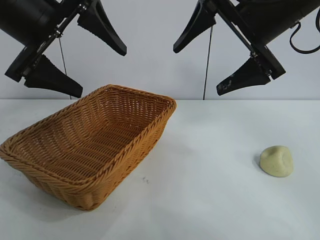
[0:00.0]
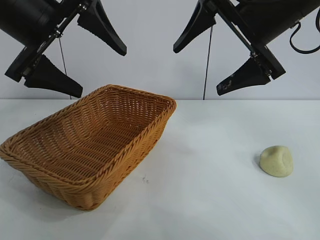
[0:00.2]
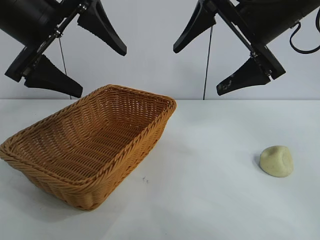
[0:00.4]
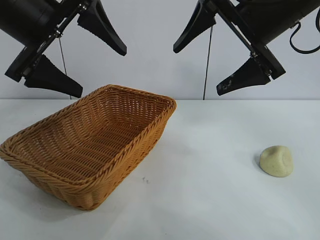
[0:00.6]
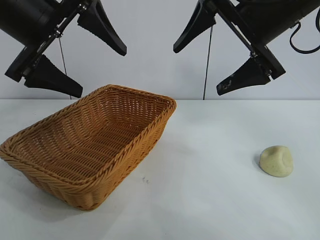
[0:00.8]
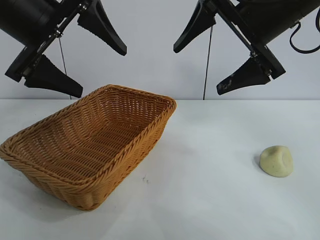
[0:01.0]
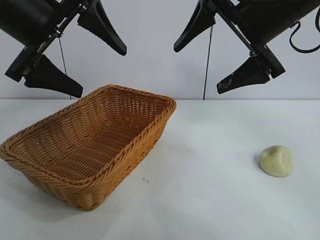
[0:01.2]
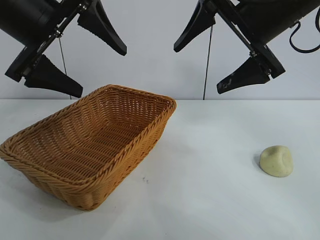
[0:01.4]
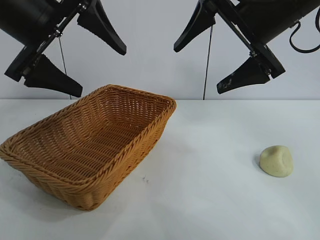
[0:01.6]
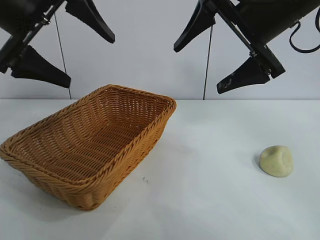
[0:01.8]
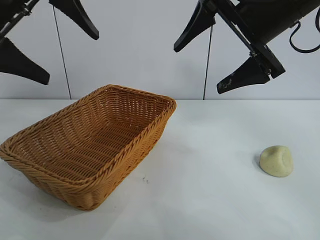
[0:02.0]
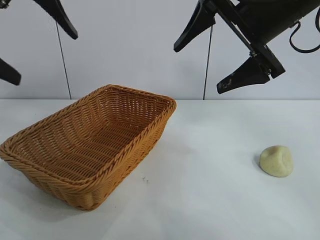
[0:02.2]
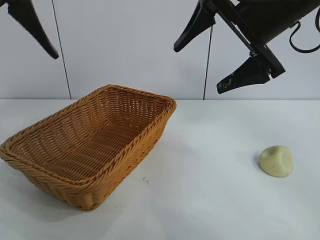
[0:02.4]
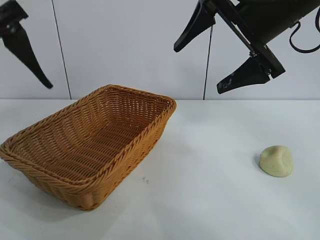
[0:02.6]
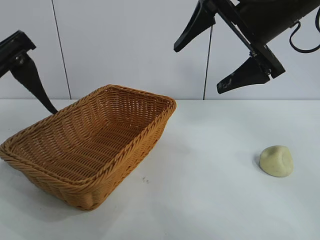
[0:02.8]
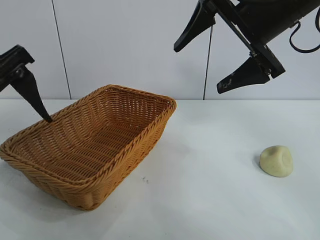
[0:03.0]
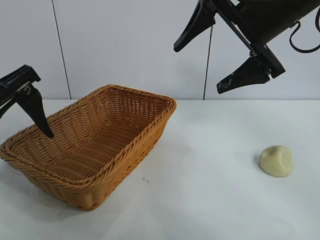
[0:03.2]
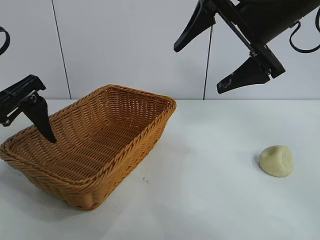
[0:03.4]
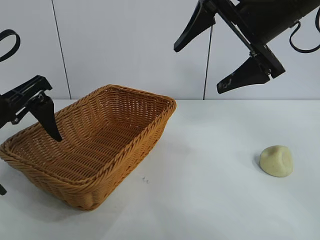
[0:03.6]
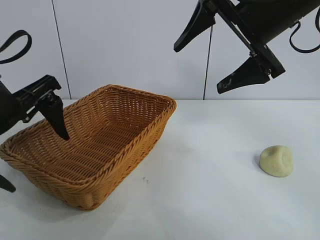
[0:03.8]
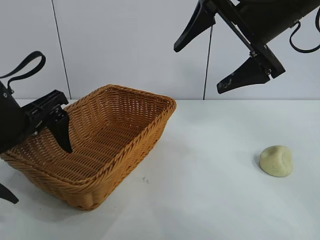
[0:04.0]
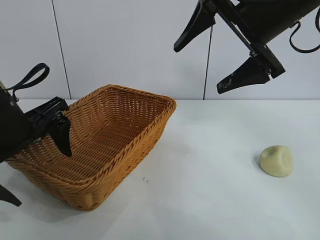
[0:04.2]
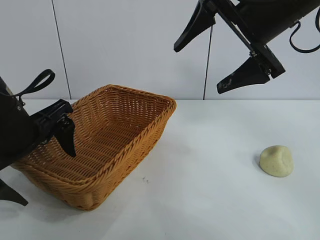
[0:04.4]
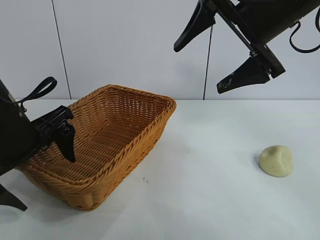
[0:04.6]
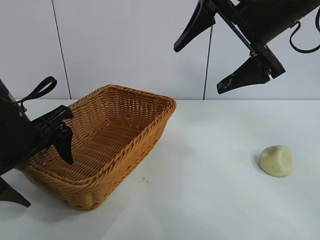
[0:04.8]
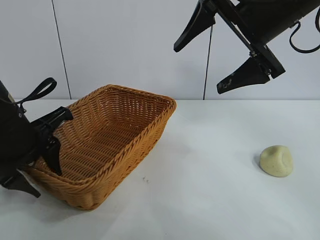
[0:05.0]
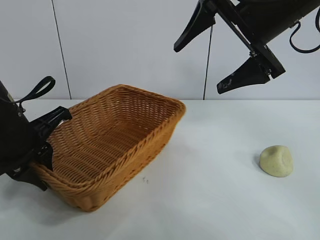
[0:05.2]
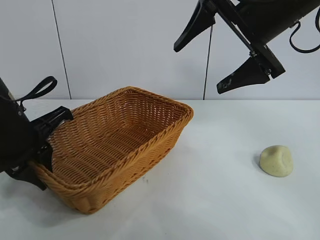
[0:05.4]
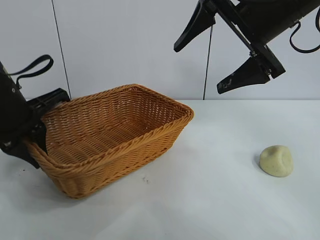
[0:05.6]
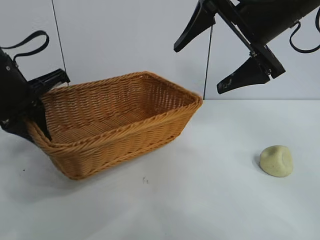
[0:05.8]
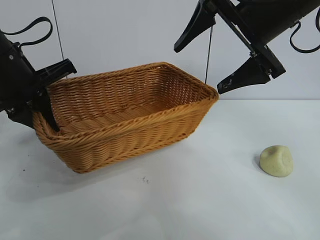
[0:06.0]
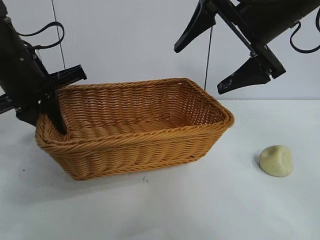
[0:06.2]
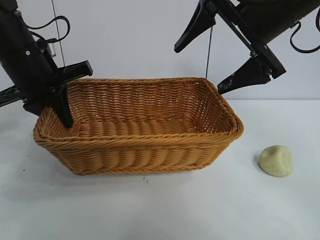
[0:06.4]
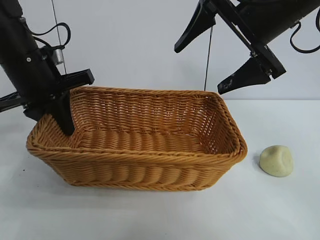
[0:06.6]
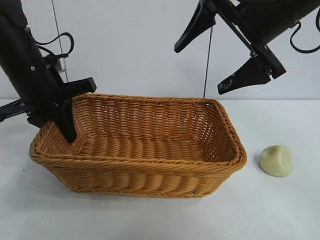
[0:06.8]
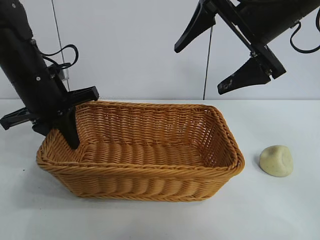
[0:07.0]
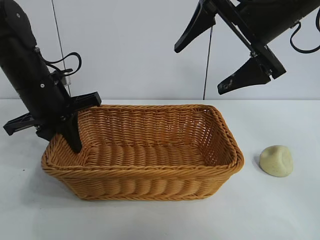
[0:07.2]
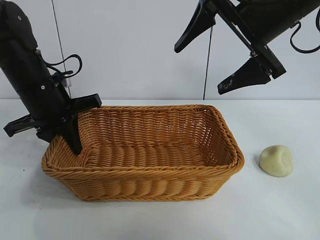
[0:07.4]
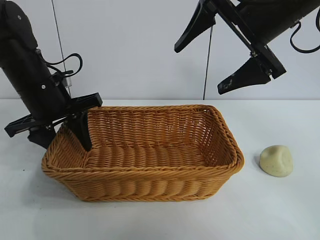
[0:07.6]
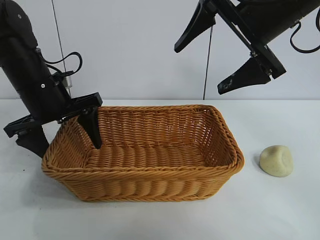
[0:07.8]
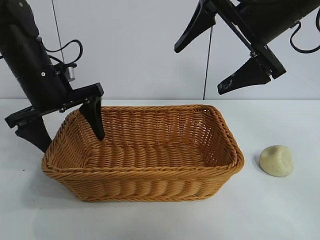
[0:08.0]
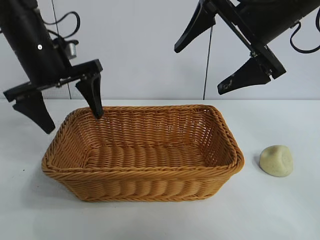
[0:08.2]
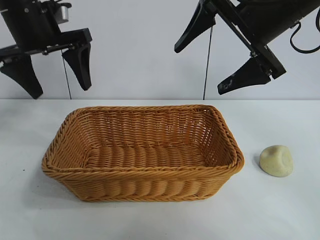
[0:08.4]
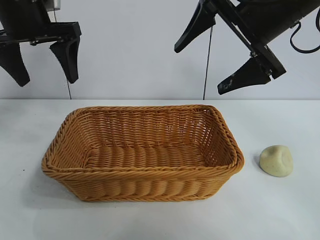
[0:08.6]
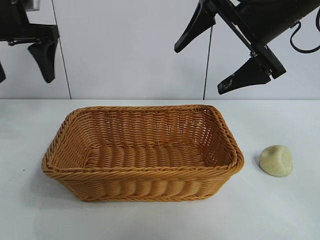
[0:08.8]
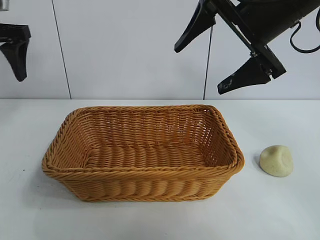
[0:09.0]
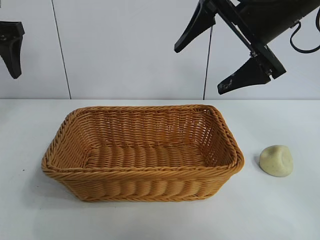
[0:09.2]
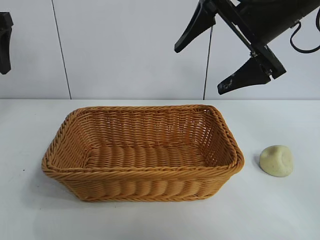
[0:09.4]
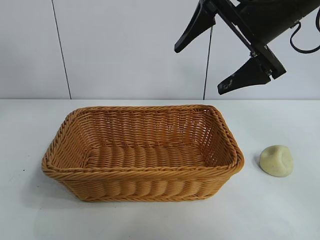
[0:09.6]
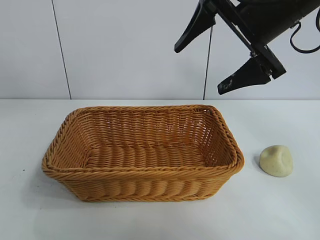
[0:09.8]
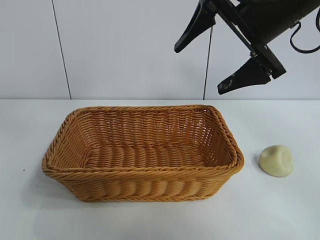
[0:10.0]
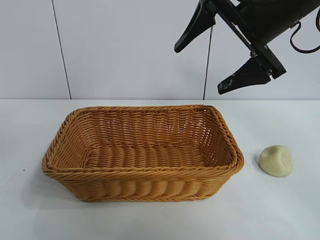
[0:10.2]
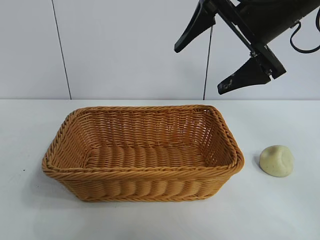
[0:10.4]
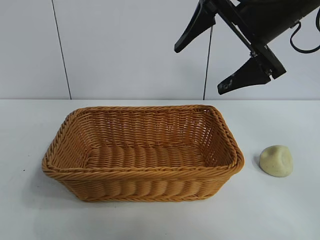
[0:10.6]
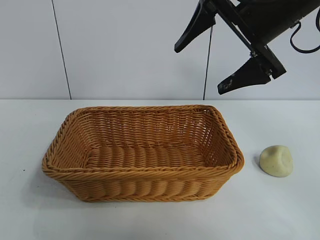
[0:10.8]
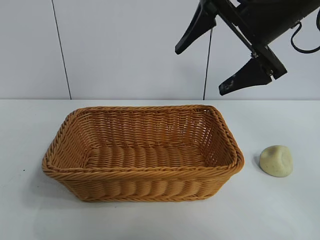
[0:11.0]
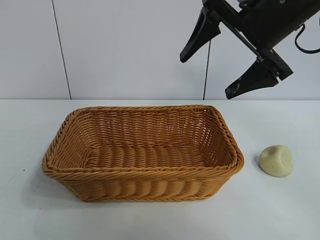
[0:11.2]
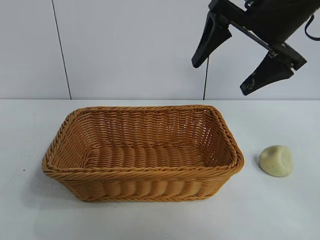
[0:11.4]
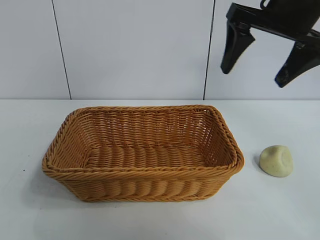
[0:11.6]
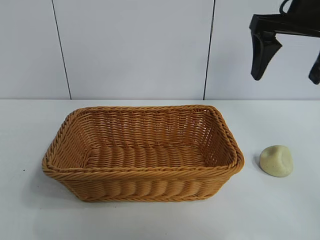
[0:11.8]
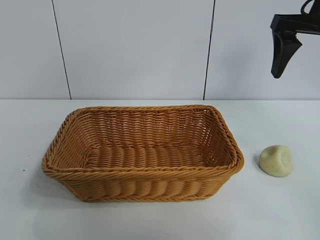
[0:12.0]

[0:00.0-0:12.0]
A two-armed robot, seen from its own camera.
Task of the whole recording: pick up the egg yolk pastry and put it into the basket.
Step, 0:01.0 to 0:05.2: Grasp the basket with left gripper.
Step, 0:05.4 to 0:07.4: Place the basket in the center of view with left gripper.

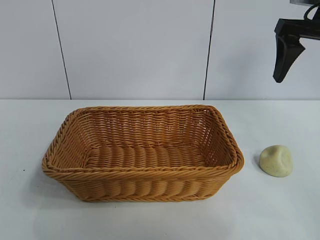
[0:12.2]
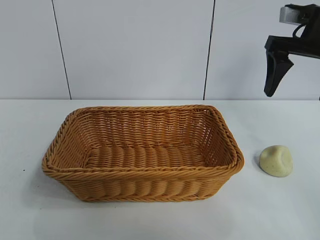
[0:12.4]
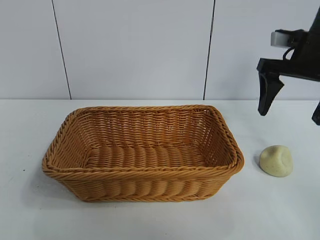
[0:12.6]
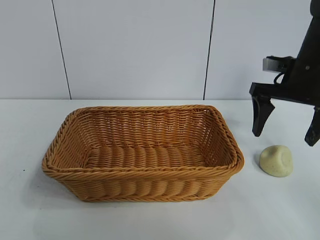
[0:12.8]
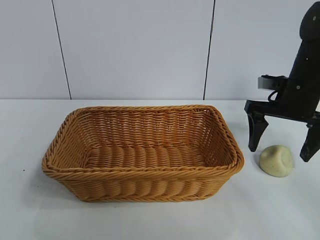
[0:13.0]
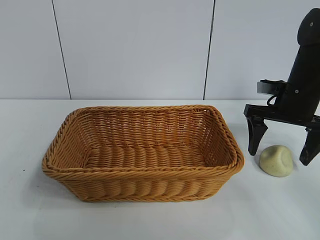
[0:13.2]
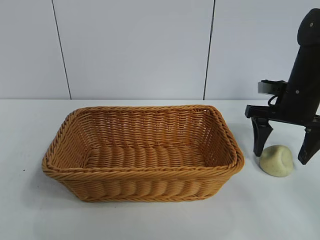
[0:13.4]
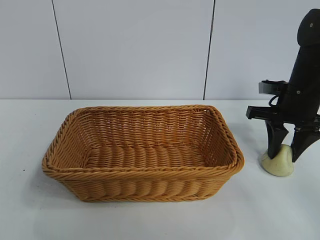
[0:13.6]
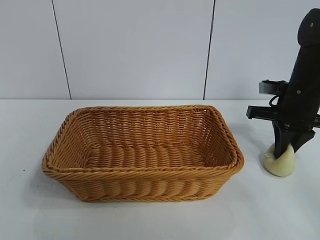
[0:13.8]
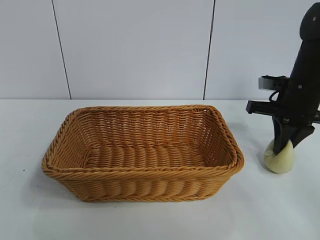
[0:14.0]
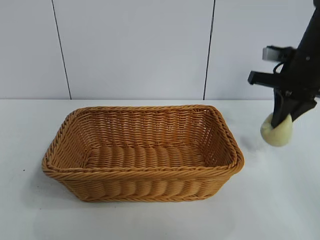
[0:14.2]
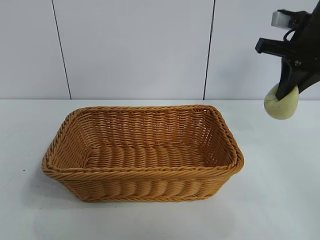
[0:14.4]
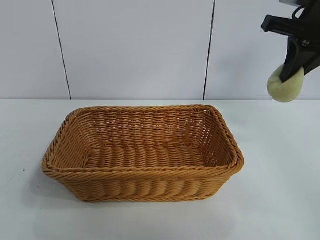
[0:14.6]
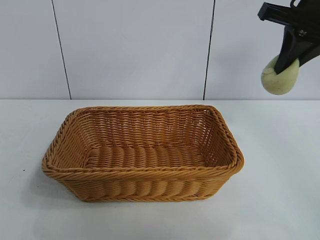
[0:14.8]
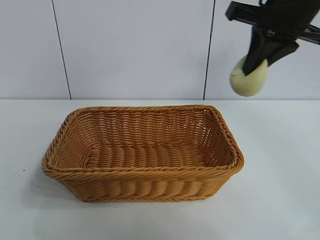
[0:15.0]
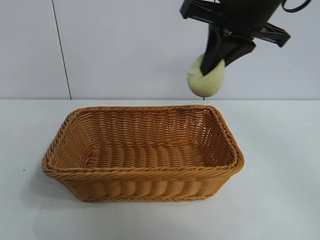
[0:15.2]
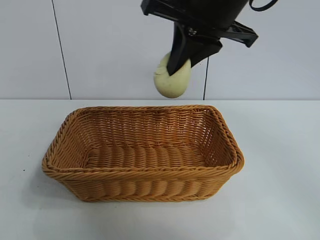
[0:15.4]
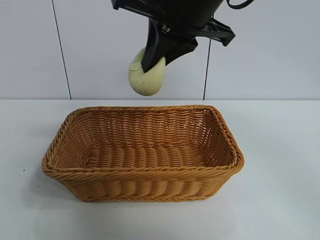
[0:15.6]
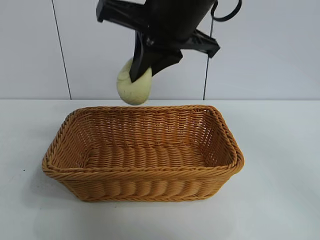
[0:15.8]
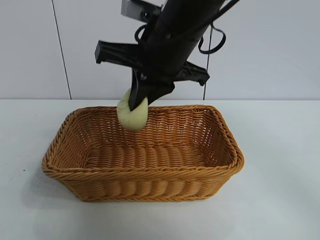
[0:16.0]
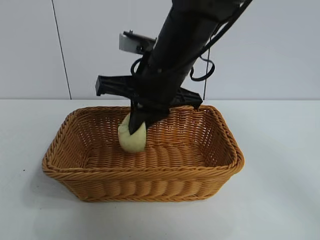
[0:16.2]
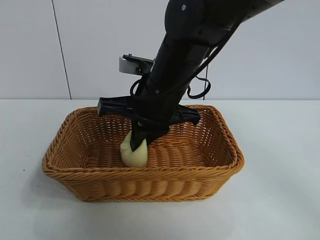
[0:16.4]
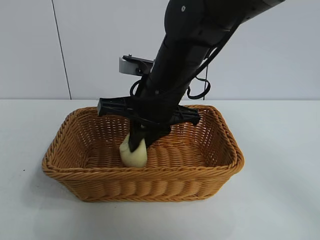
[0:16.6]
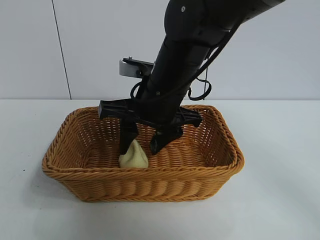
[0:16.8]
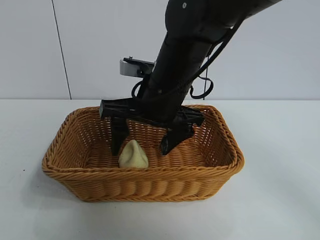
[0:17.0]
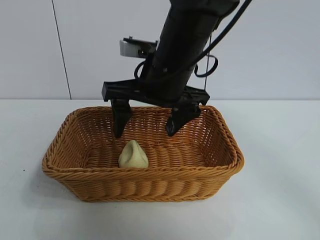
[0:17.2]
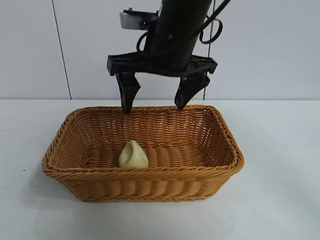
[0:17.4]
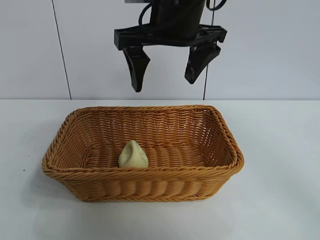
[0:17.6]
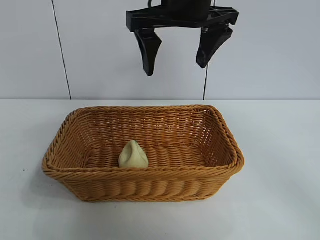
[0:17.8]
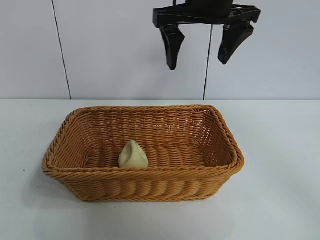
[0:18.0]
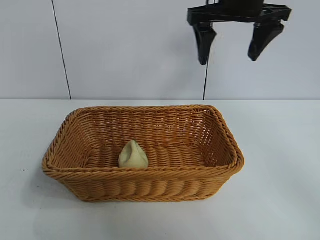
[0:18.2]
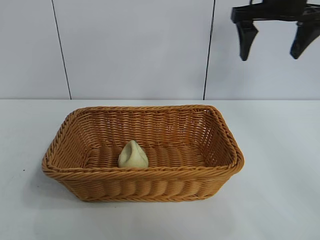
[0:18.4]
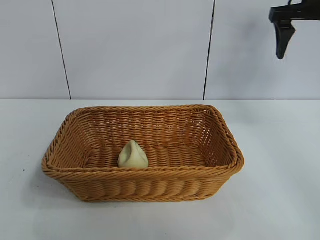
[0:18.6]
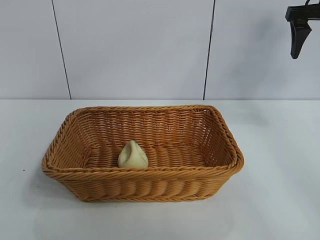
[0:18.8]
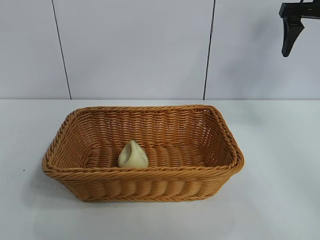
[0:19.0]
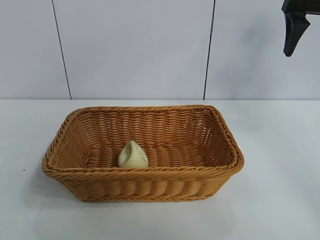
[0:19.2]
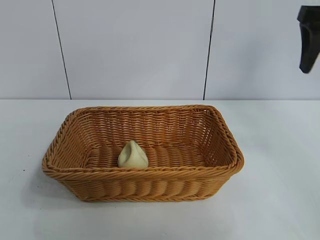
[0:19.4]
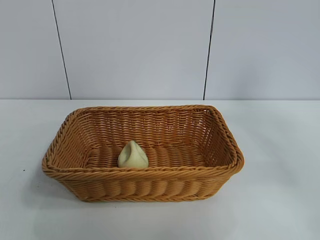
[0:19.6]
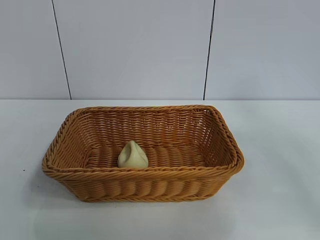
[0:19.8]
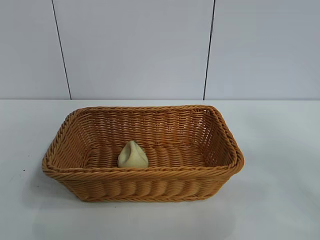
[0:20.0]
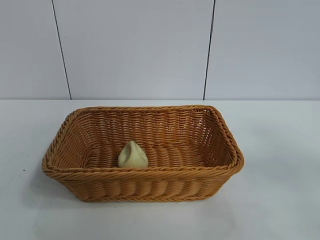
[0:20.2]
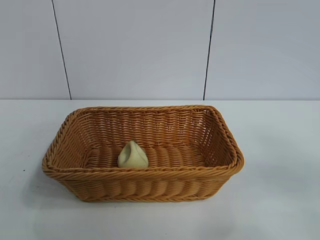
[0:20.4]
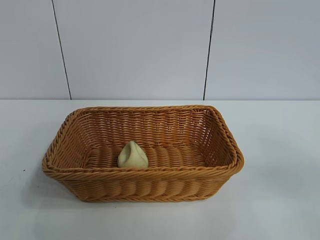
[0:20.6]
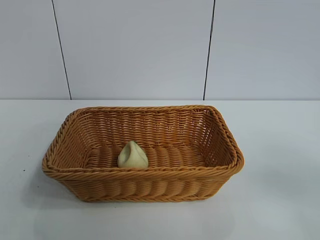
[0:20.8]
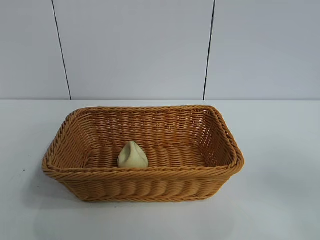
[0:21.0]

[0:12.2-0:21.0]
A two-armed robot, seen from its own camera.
Task of the whole recording: pick up the egg yolk pastry and put it into the basket.
Step, 0:13.8 to 0:16.6: Place the egg yolk pastry in the basket with right gripper.

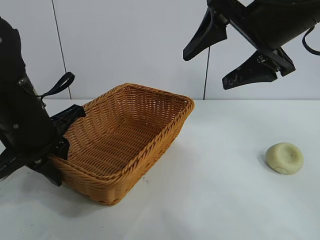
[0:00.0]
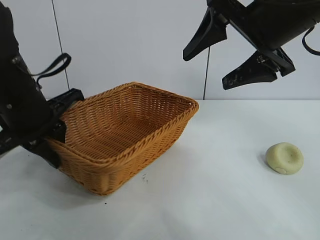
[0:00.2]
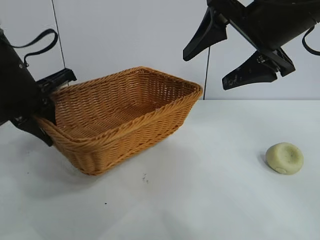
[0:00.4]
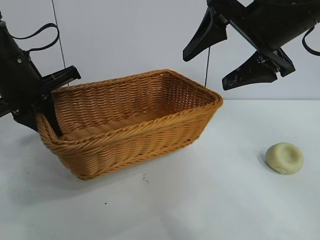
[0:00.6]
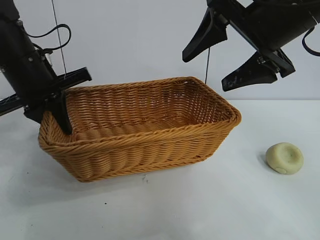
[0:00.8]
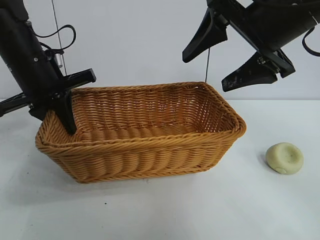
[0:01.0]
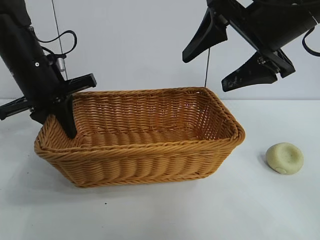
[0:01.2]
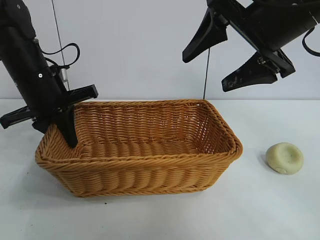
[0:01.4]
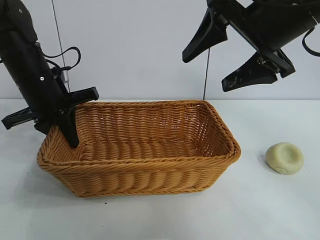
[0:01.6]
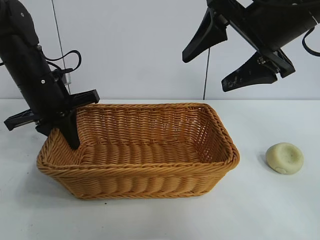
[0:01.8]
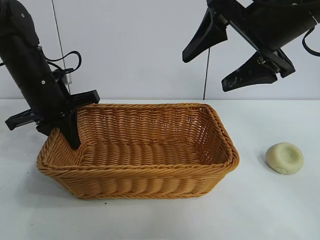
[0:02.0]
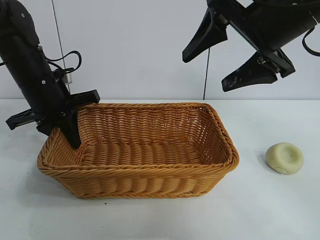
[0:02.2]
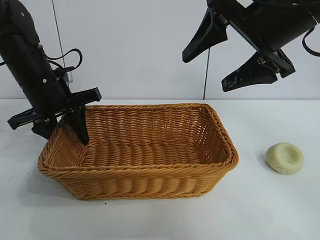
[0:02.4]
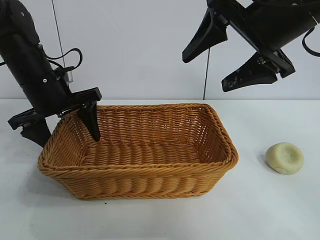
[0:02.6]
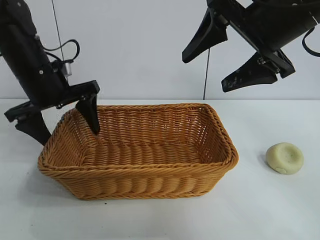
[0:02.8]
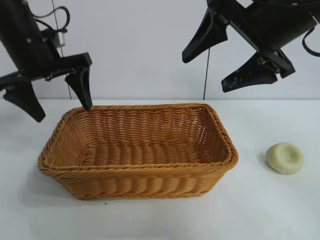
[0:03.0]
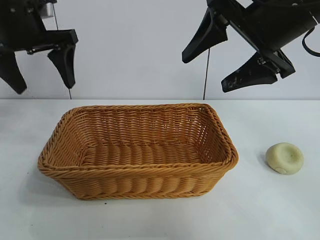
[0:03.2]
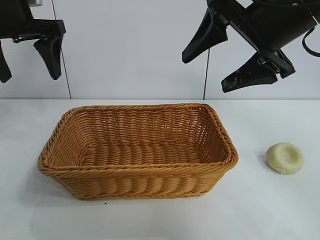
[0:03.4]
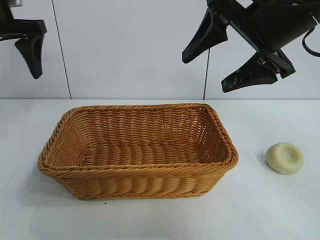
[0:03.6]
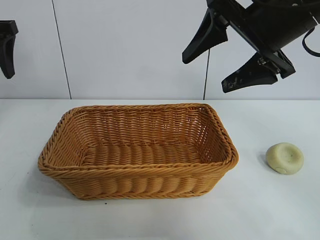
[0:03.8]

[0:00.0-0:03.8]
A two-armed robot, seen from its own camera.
Task of the whole recording: pick up the egg yolk pastry and put it into the basket.
Step, 0:00.0 to 0:02.6: Place the basket in the center of view with left gripper.
